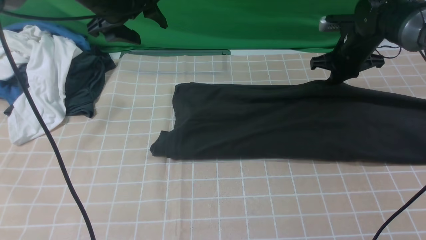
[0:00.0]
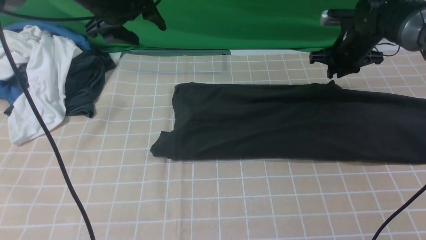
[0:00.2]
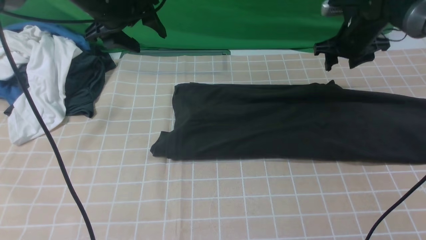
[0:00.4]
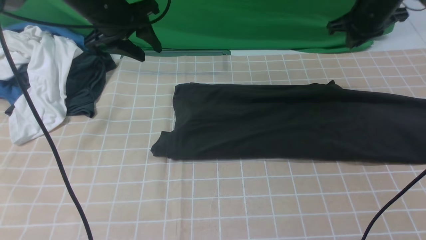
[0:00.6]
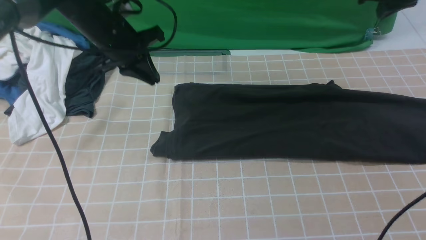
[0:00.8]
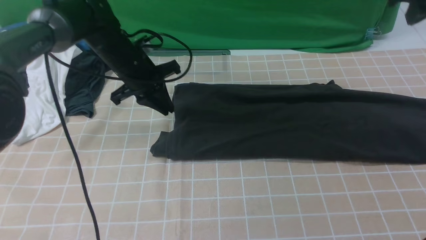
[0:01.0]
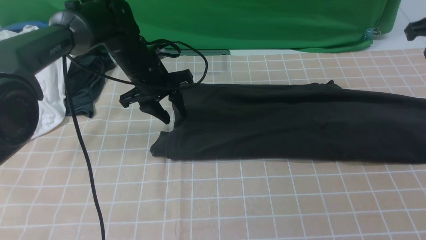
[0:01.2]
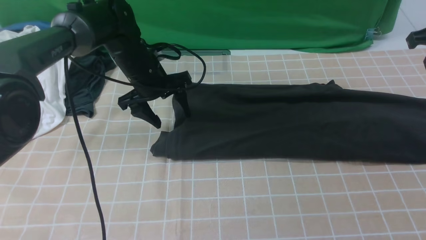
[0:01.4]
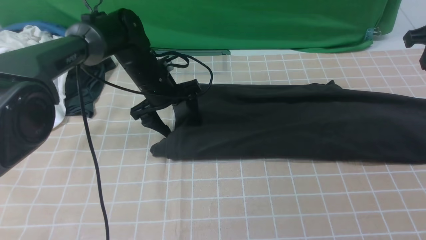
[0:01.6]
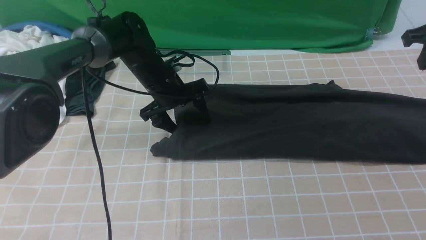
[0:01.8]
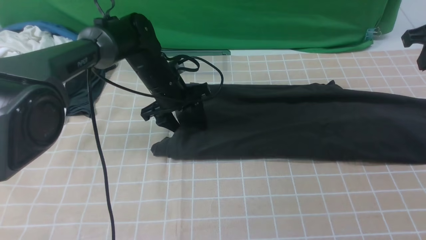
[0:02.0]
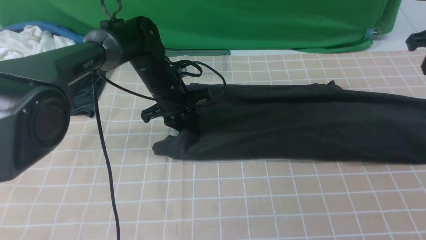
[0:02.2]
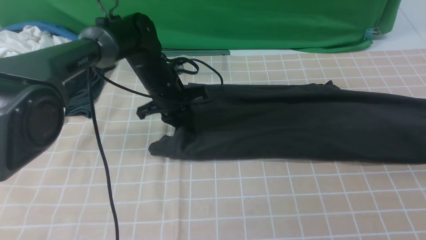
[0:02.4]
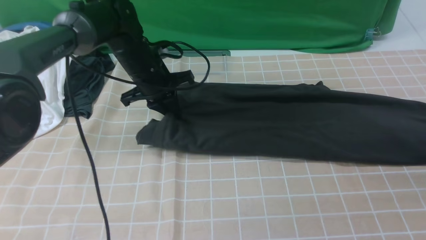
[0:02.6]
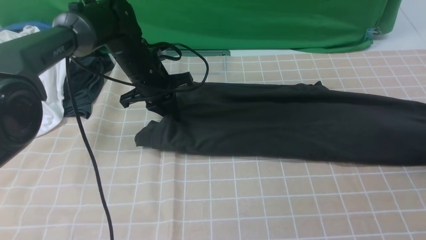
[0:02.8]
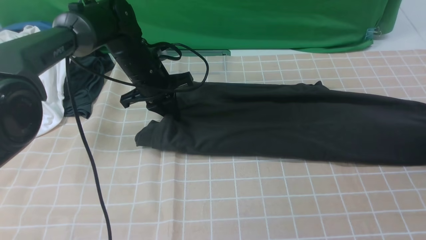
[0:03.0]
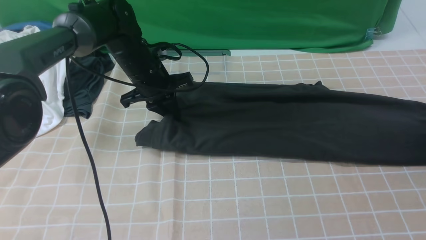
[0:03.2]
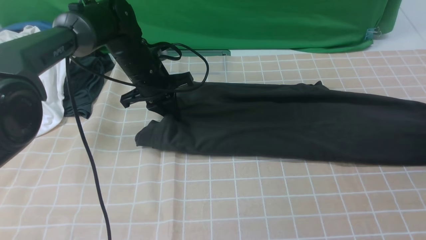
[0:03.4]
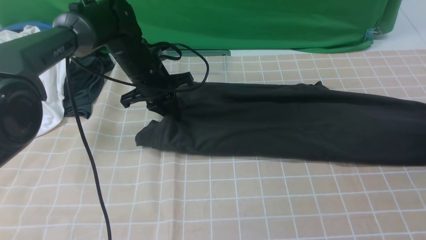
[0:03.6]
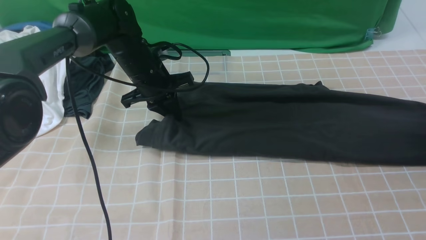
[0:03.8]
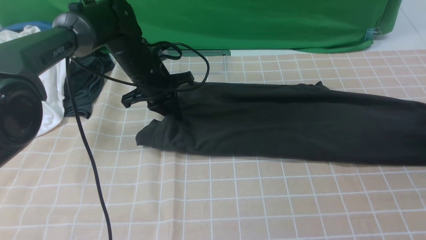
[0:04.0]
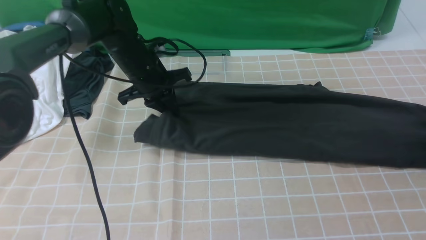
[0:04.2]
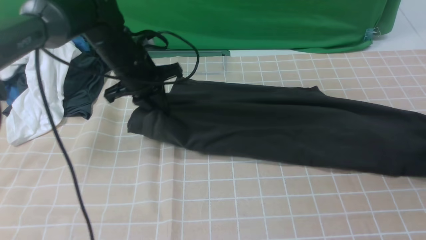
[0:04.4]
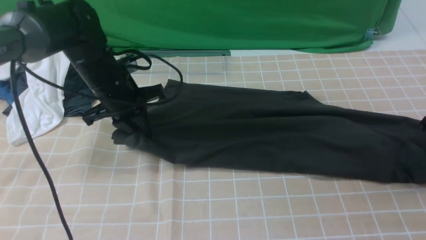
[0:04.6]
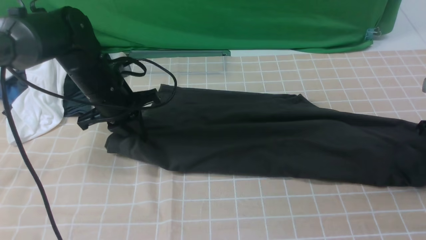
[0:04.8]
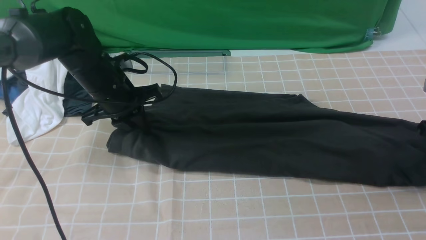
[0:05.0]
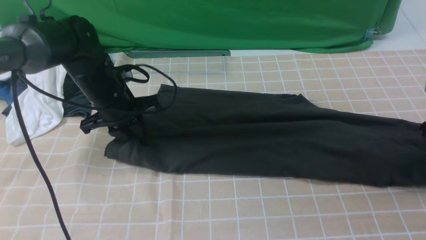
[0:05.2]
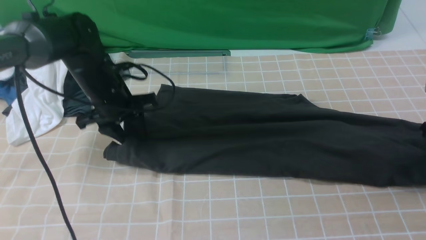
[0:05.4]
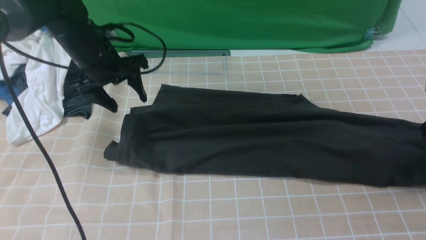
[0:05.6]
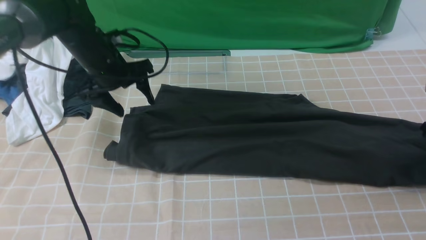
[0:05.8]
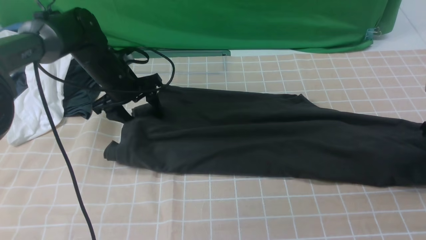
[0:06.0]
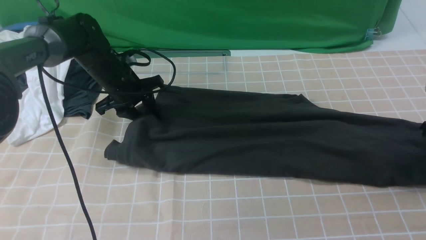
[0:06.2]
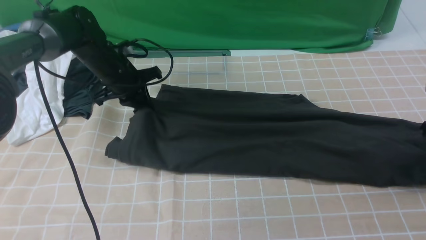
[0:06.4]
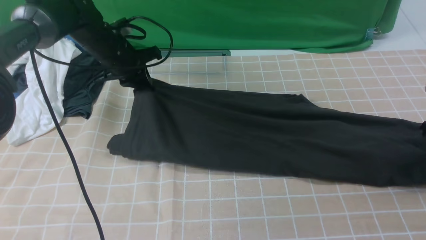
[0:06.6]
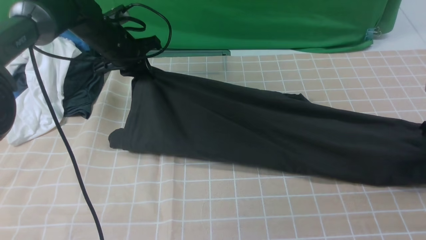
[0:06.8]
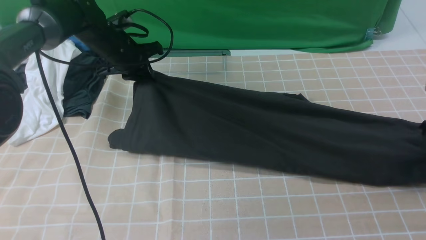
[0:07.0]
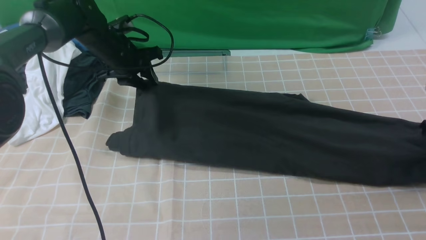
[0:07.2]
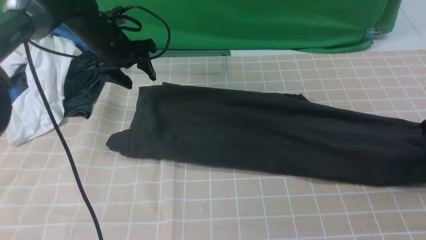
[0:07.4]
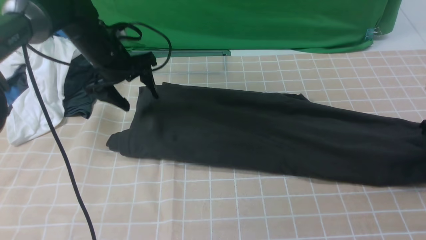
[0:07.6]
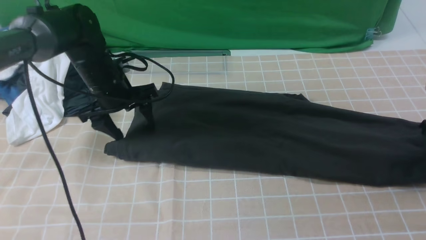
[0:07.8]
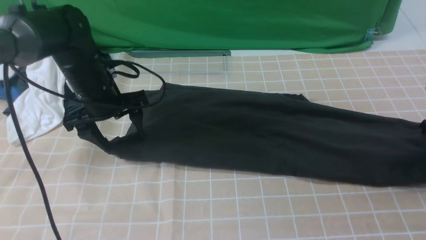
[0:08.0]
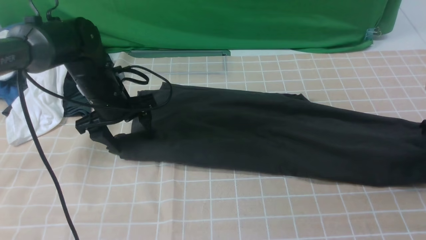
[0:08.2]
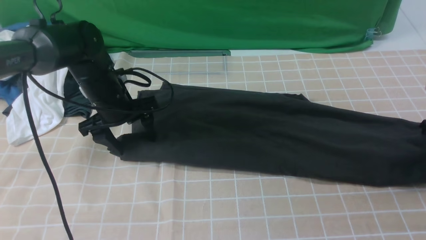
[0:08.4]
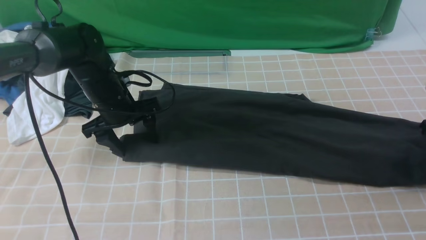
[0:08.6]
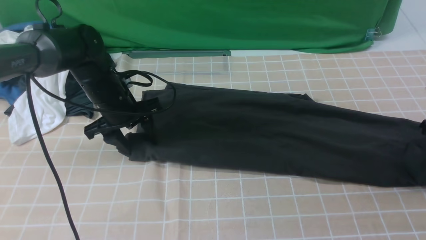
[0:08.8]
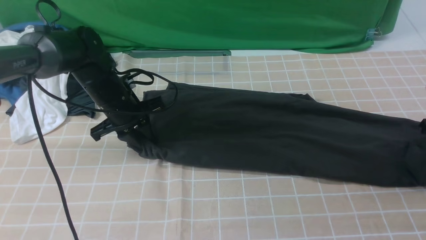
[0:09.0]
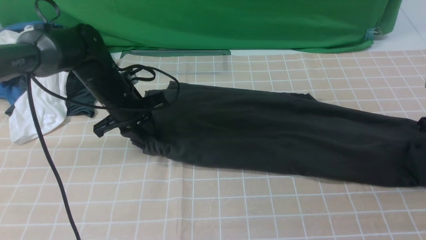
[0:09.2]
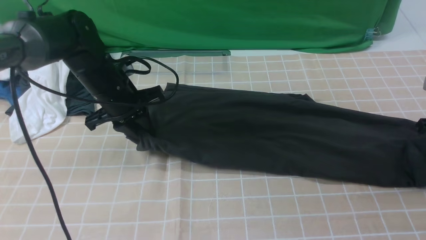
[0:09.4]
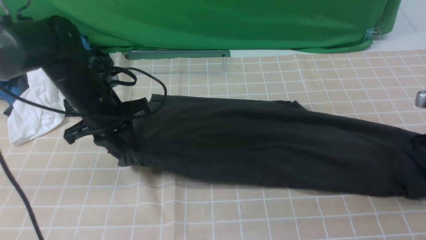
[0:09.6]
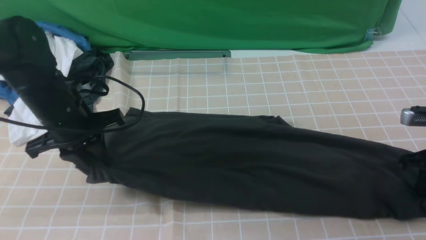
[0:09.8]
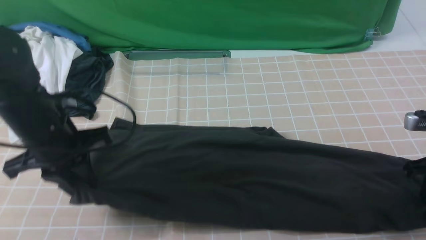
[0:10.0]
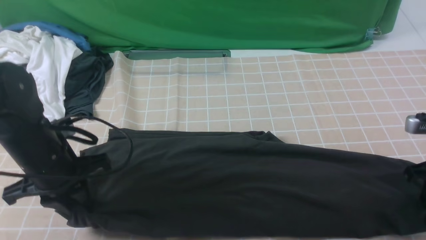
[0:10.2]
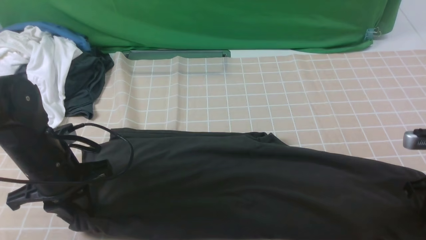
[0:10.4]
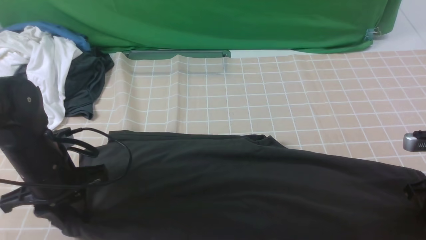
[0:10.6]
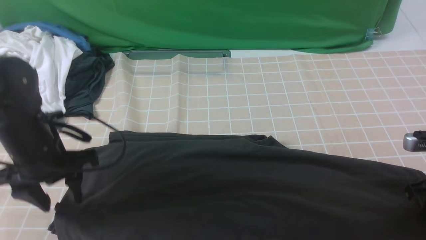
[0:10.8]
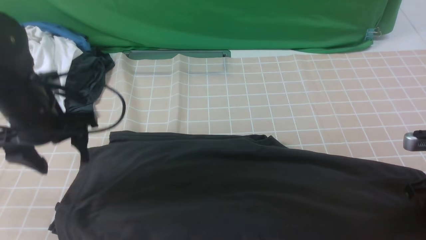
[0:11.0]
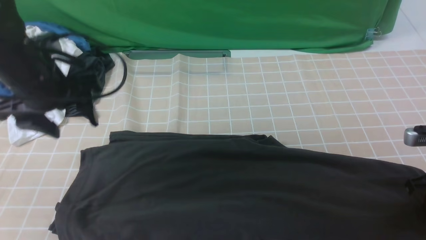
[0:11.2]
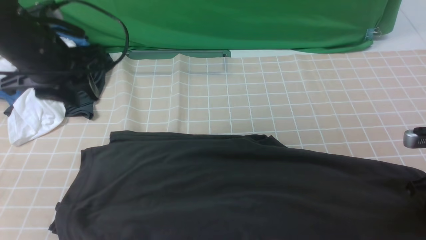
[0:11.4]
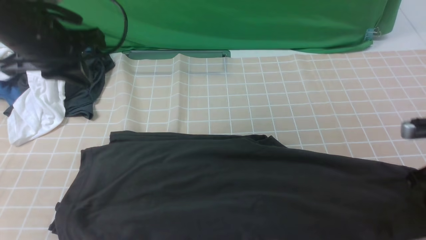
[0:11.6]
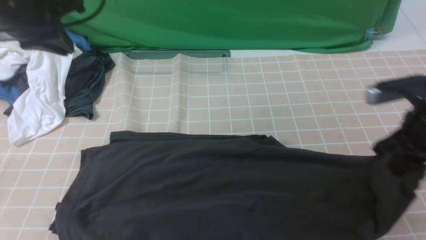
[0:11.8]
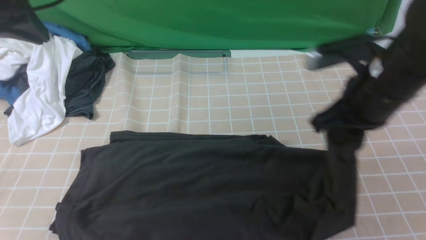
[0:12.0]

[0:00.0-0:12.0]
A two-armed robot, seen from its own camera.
Step, 0.4 to 4.0 s: use the right arm to clamp the right edge of the fabric.
0.0 to 1.6 s: The right gripper moves upward, backward and to the right, about 20 cm. Meanwhile the left gripper travels downward and to the right by some 15 cm, and closes and opens again.
1.6 to 3.0 s: The right gripper travels downward and to the right by about 15 cm, and opens its fingers, while the left gripper closes.
3.0 to 4.4 s: The right gripper closes.
4.4 to 6.0 s: The left gripper ends up roughly 5 cm from where it was, and opens up.
6.0 to 7.6 s: The left gripper closes, then opens again.
7.6 to 9.0 s: The left gripper moves some 5 cm, and closes its fingers.
9.0 to 10.4 s: The right gripper is displaced backward and to the left by about 10 cm. Meanwhile the left gripper heads backward, covering approximately 15 cm.
10.4 to 12.0 s: The right gripper travels to the left and upward by about 20 cm; the left gripper goes roughly 20 cm upward, and opens, then closes again.

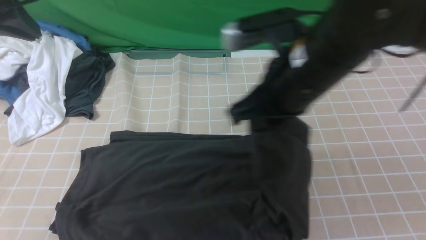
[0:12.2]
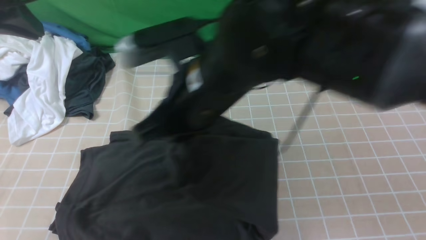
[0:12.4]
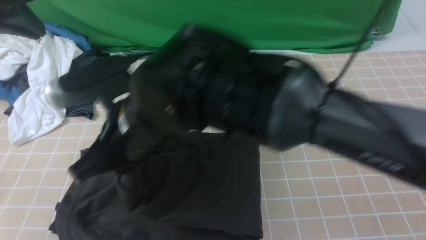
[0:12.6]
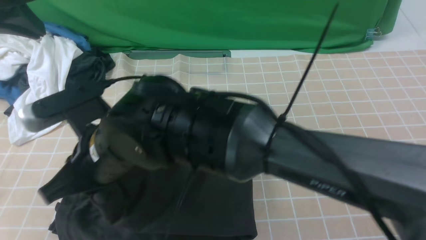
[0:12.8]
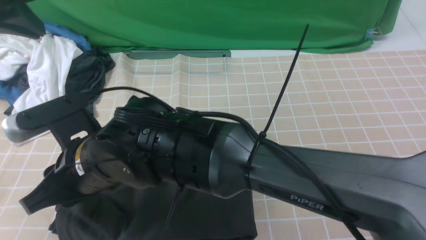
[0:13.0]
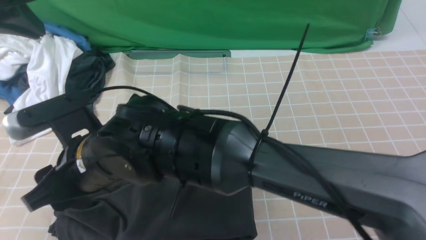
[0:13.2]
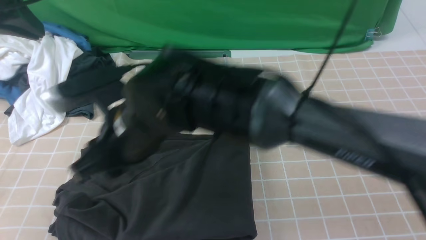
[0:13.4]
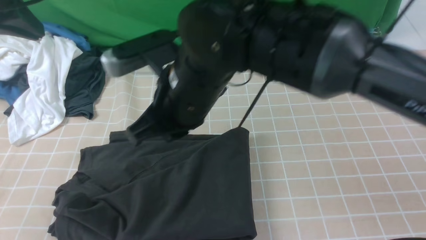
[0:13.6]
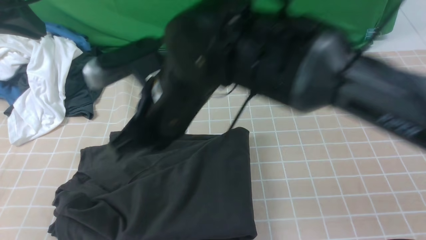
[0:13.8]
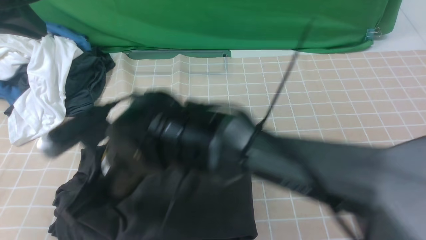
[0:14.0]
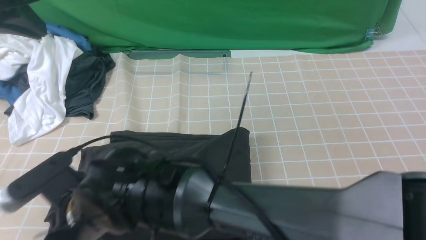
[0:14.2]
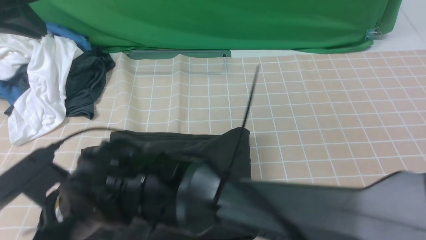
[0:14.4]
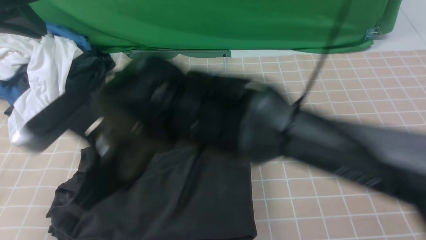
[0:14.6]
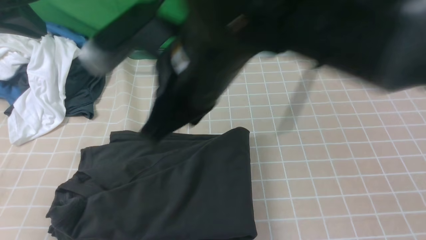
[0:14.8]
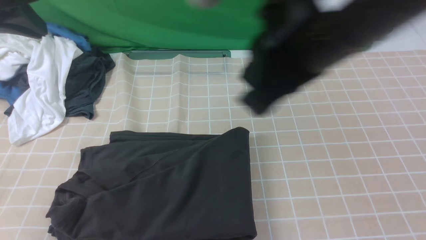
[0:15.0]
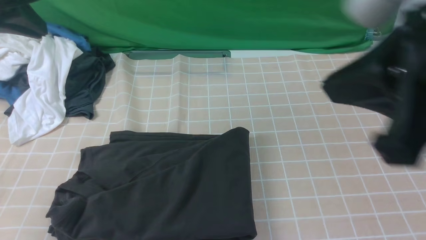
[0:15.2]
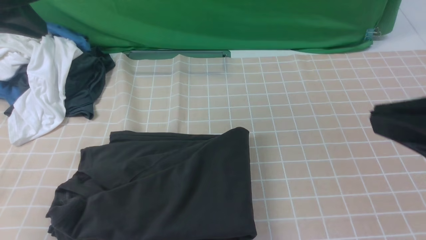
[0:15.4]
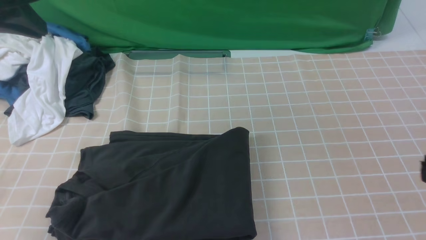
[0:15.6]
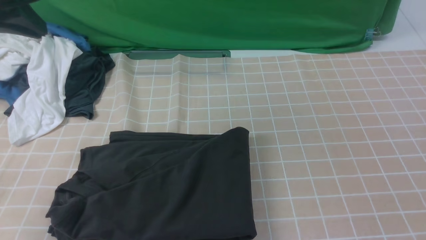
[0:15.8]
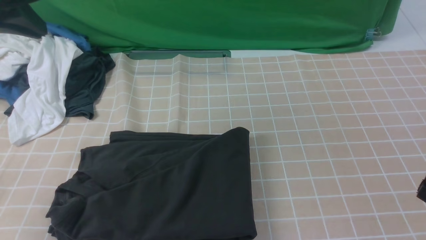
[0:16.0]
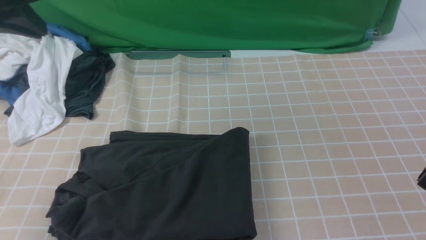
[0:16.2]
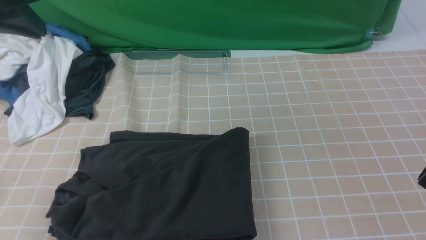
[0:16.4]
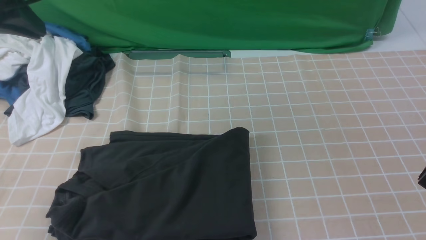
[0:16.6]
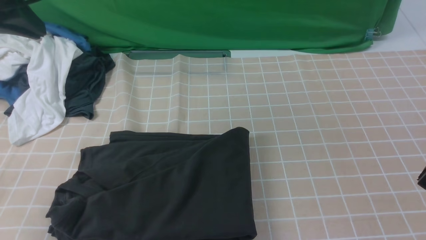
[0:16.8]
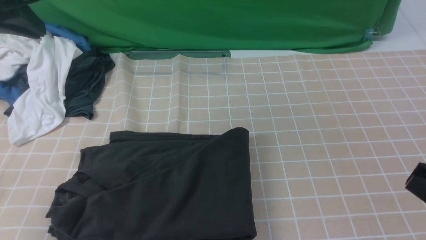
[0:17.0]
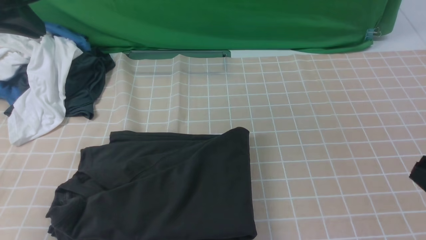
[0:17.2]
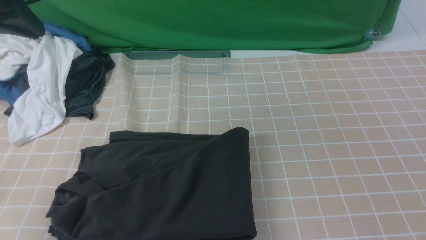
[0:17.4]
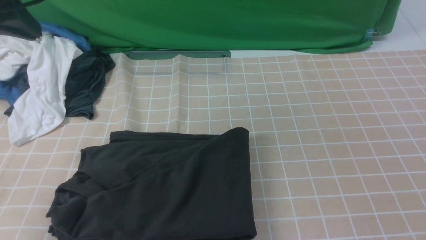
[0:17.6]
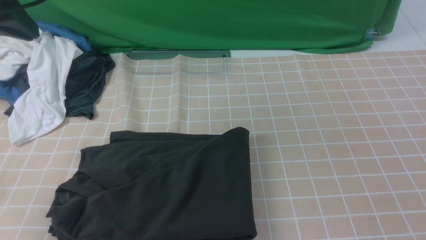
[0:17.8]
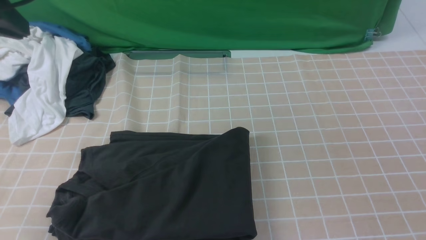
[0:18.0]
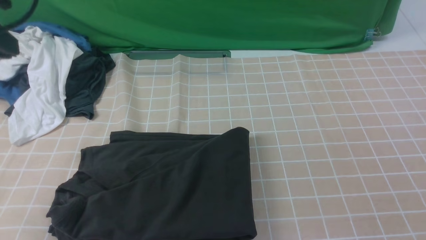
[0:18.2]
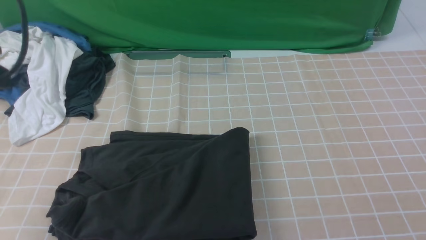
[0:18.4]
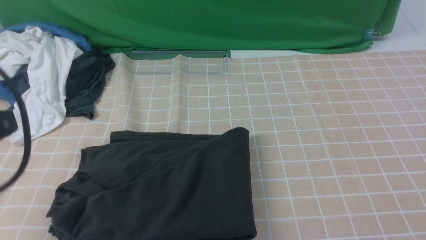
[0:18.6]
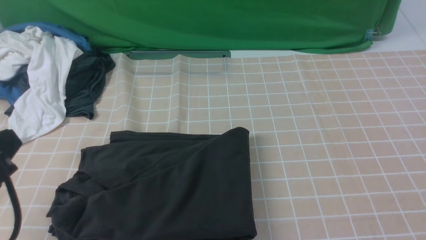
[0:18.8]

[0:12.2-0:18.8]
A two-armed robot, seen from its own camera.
12.2 to 13.8 s: The right gripper heads to the left, covering about 15 cm, and opens and closes again.
13.8 to 15.4 s: The right gripper shifts some 35 cm to the right and backward.
15.4 to 17.2 s: The right gripper travels downward and to the right by roughly 15 cm.
17.2 to 18.8 s: The left gripper is displaced backward by about 25 cm.
